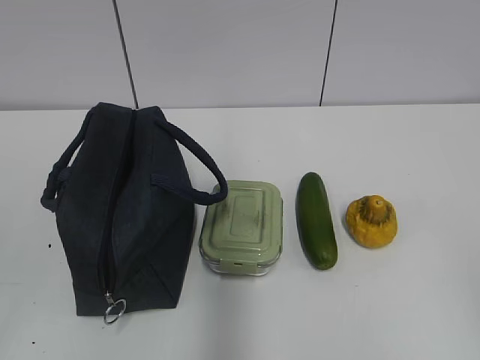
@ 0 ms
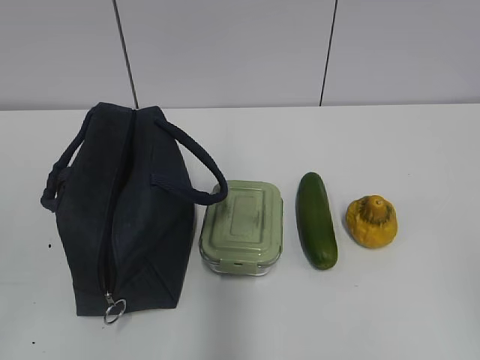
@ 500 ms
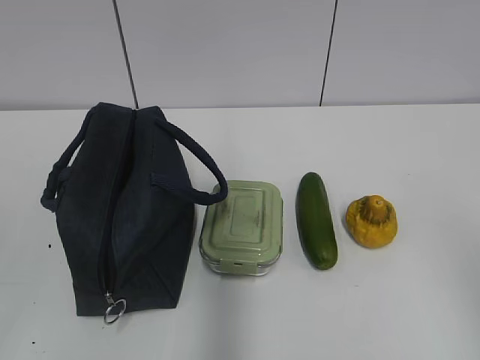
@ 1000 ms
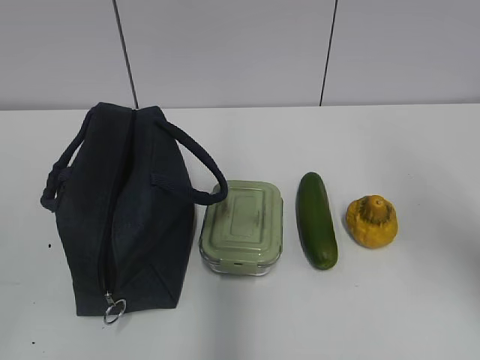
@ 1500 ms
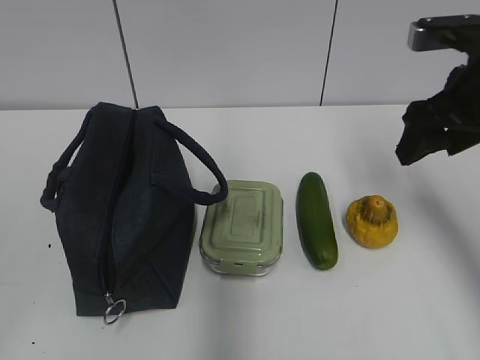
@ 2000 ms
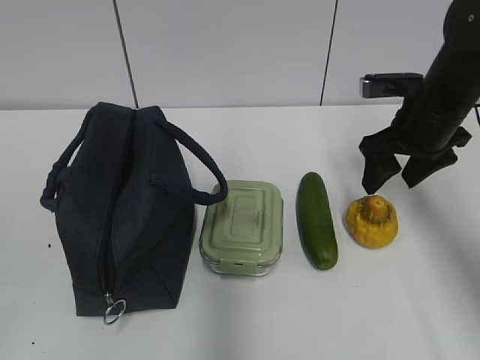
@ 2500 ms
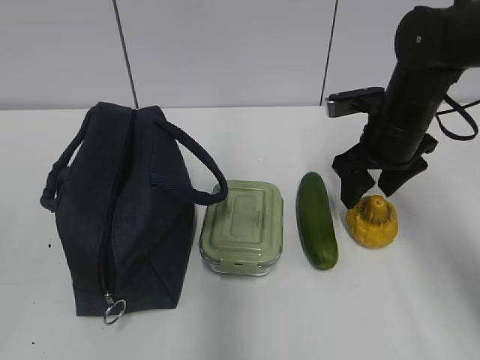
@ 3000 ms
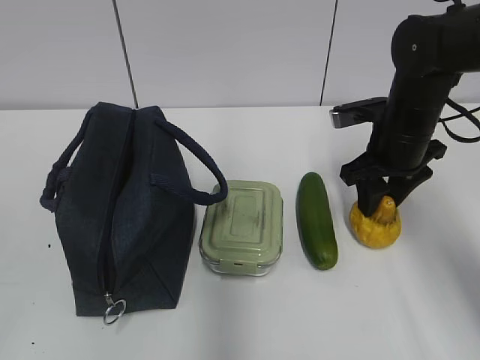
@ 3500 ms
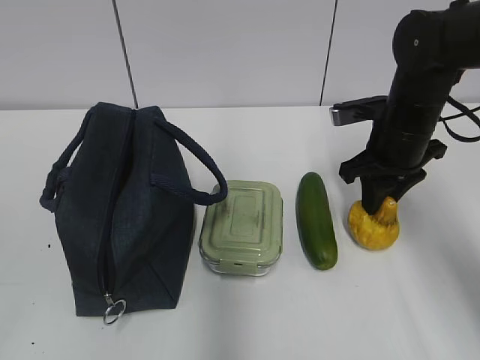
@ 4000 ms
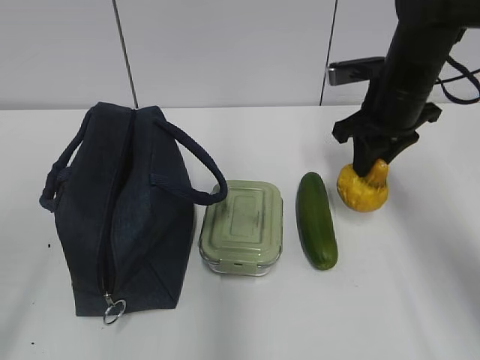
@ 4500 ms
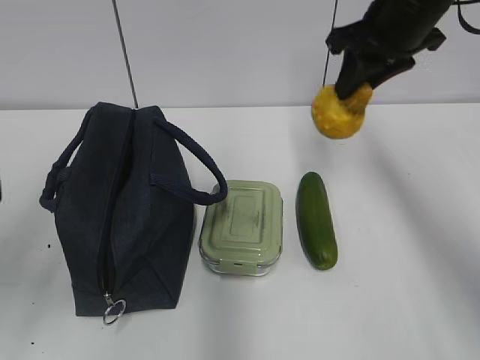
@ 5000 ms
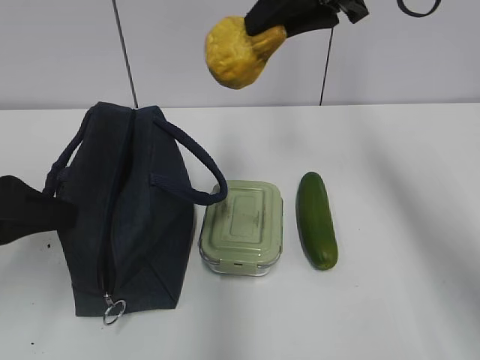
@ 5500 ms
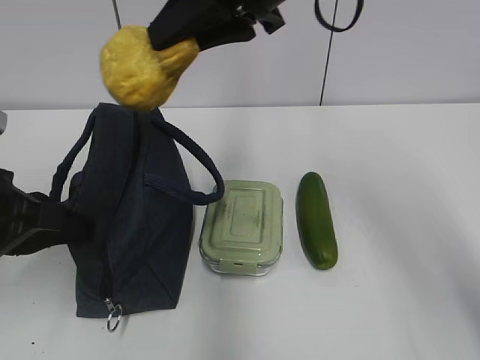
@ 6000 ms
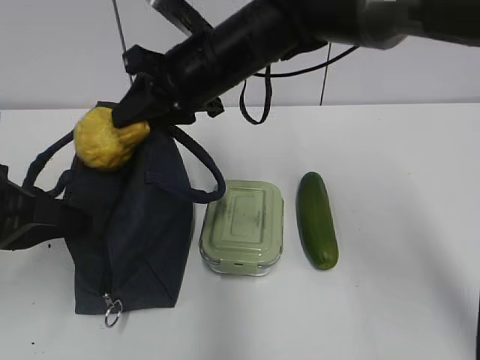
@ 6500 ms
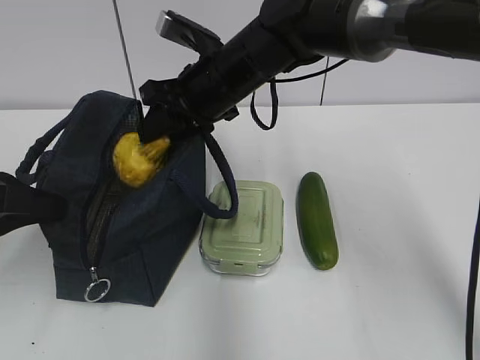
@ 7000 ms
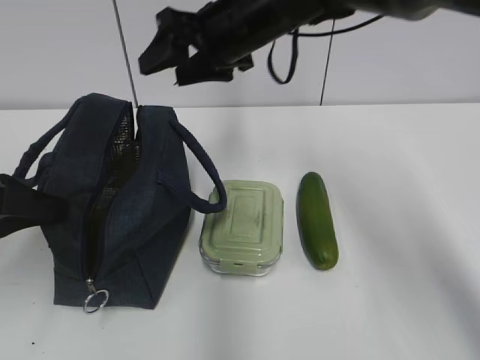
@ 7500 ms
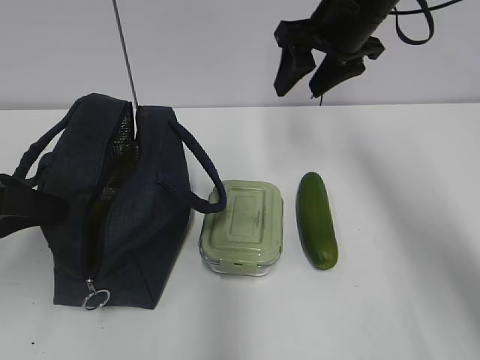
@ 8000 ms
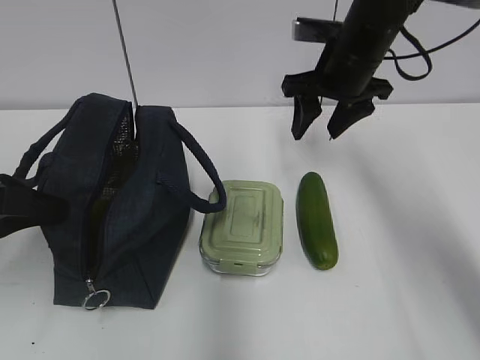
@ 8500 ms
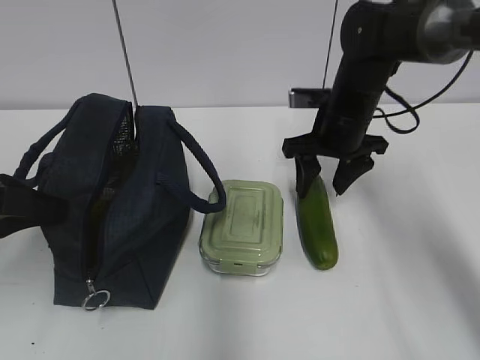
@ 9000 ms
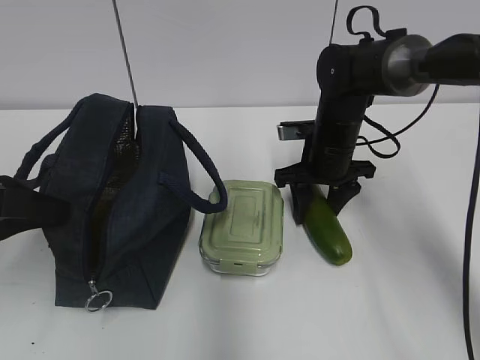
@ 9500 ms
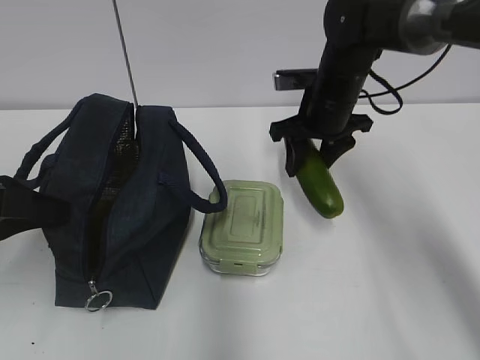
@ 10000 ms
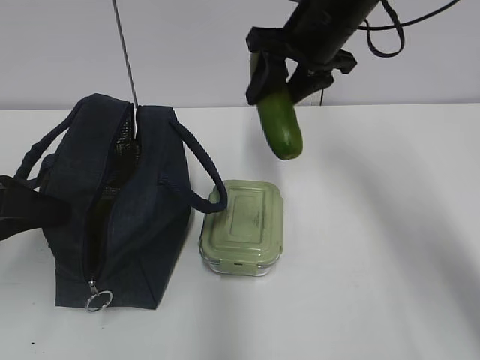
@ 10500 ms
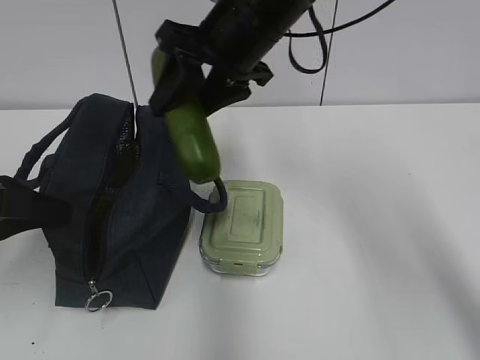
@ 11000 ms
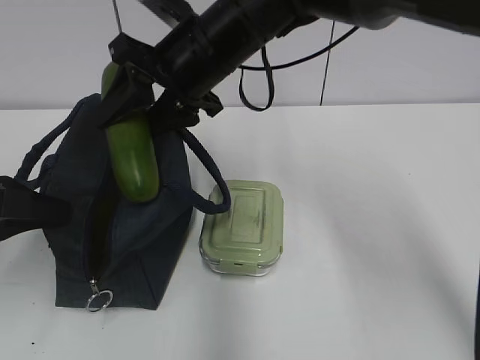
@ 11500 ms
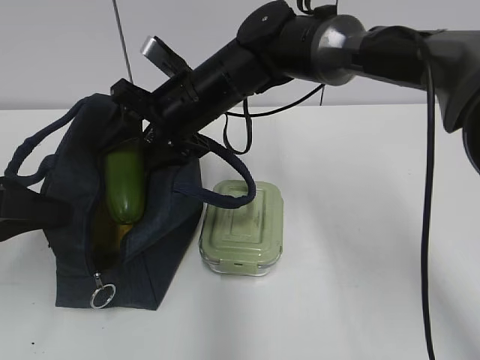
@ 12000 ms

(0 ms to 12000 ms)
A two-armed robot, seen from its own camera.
Step, 0 ms - 3500 ms: Grab the pear with your right hand.
Step, 4000 ms - 6500 ms: Grab the lunch bag with your left hand.
Step, 7500 ms - 9000 ms: Grab the cucumber with your right hand.
2000 ms - 4000 ms: The right gripper heads downward and forward, covering roughly 10 cm, and closes.
4000 ms - 6000 ms: The right gripper goes roughly 25 cm upward and to the left. The left gripper is displaced forward by some 20 cm, and closes.
6000 ms - 8000 ms: The right gripper heads to the right, forward and downward, covering roughly 15 cm, and opens.
8000 ms - 10000 ms: The right gripper goes some 10 cm downward.
10000 ms - 12000 ms: The right gripper moves to the left, about 15 cm.

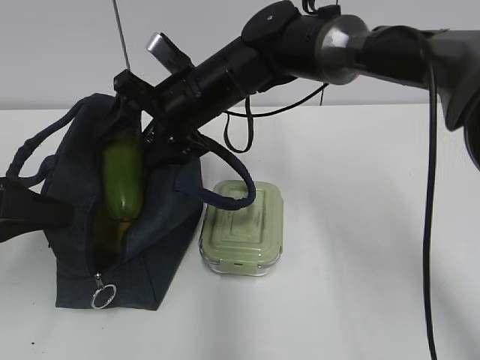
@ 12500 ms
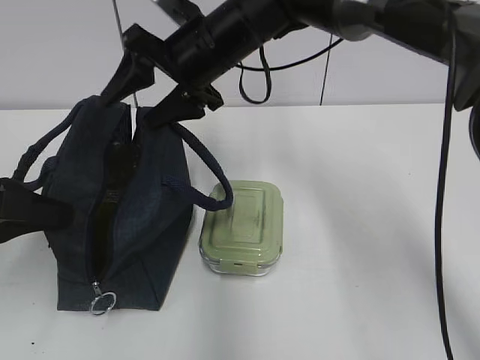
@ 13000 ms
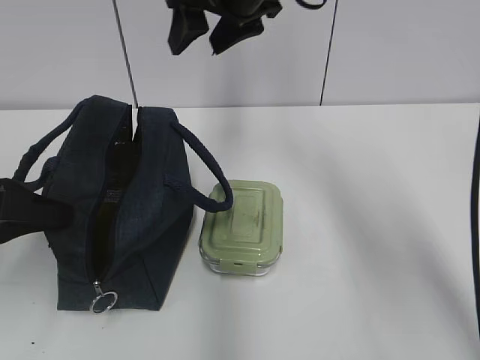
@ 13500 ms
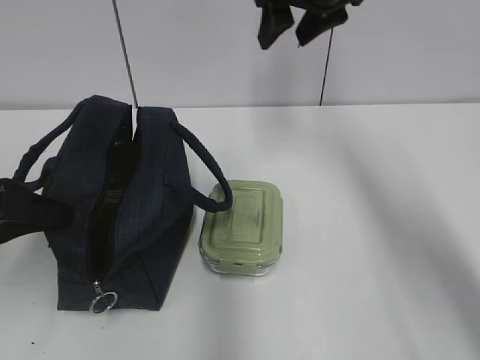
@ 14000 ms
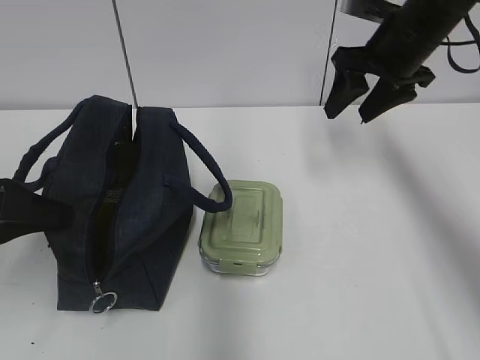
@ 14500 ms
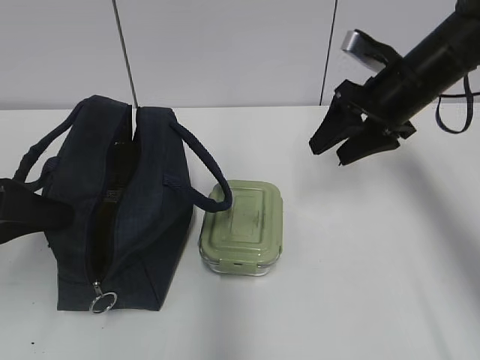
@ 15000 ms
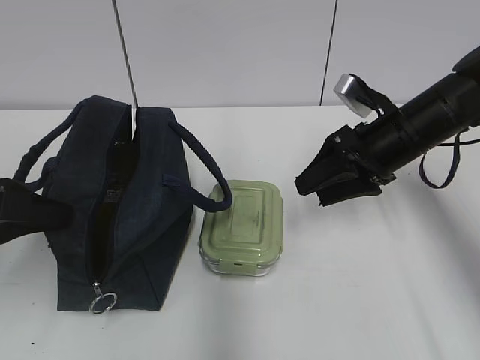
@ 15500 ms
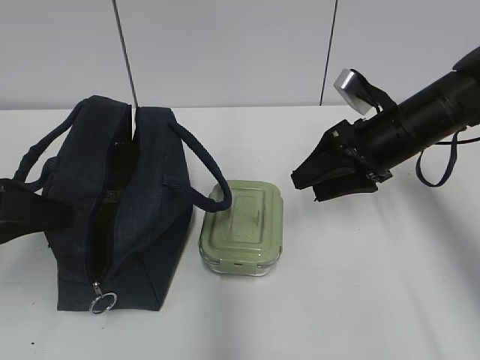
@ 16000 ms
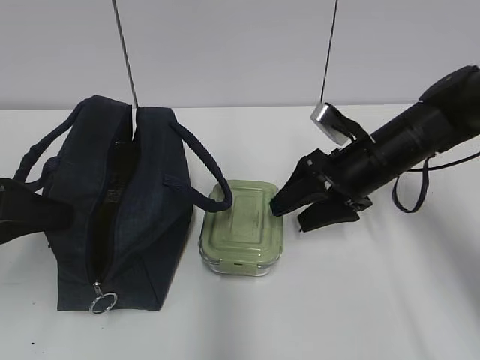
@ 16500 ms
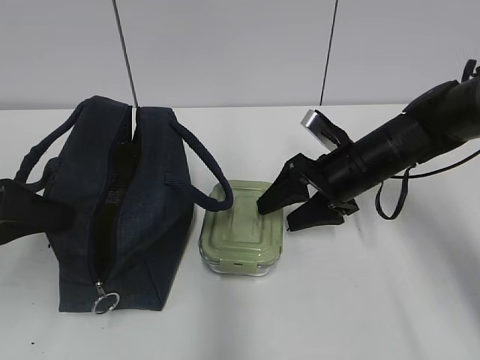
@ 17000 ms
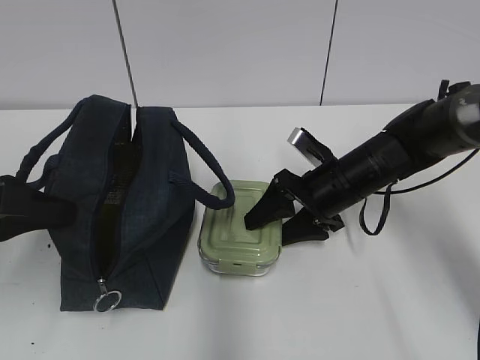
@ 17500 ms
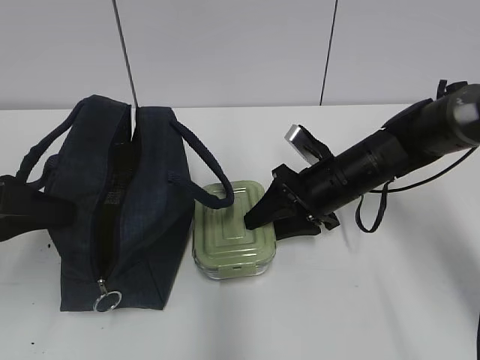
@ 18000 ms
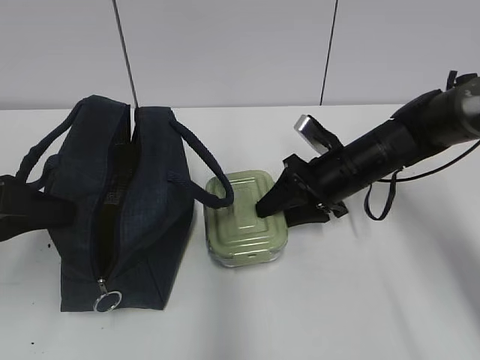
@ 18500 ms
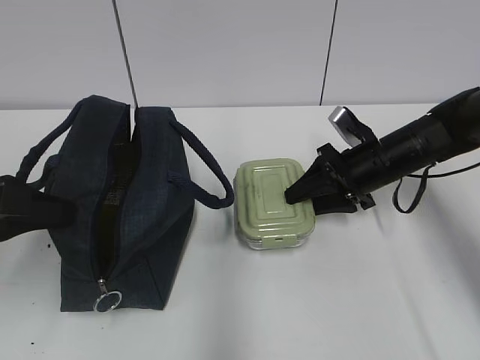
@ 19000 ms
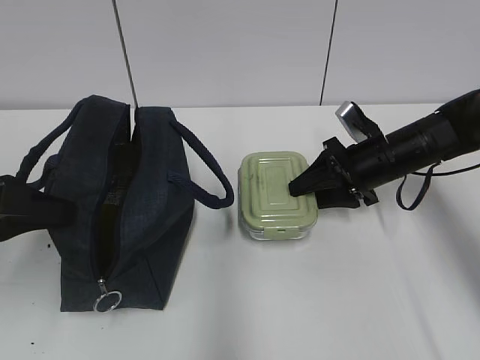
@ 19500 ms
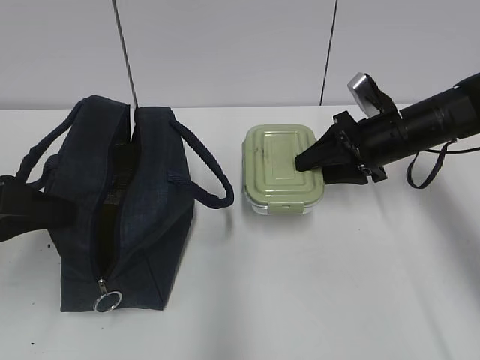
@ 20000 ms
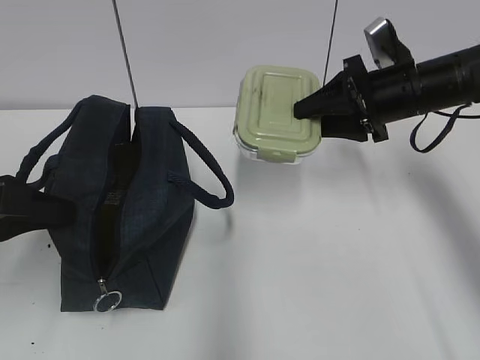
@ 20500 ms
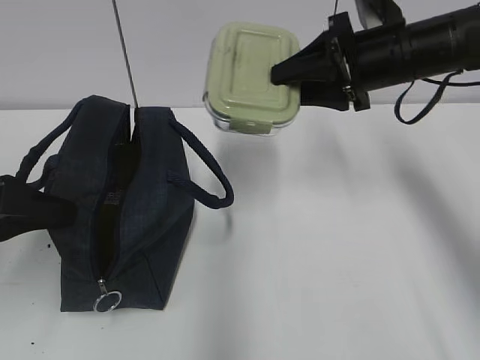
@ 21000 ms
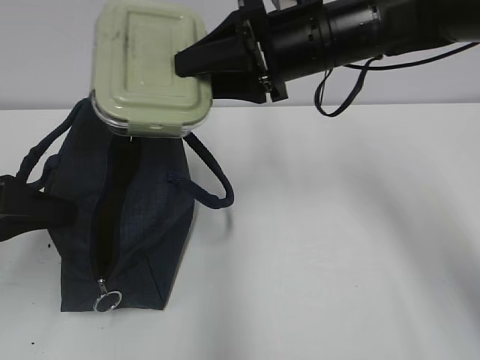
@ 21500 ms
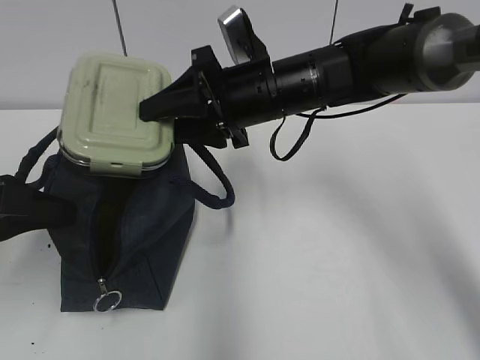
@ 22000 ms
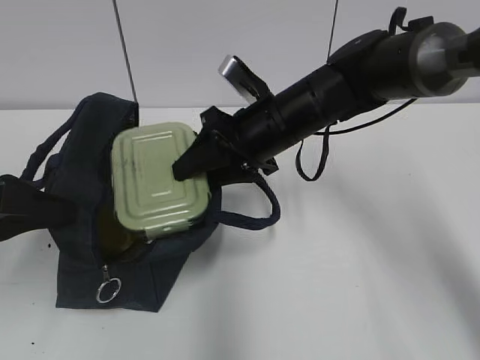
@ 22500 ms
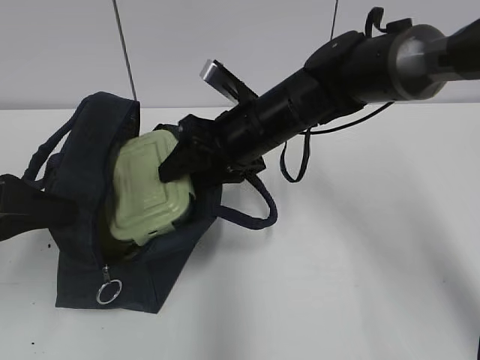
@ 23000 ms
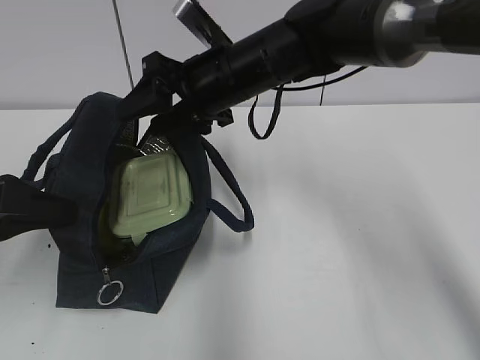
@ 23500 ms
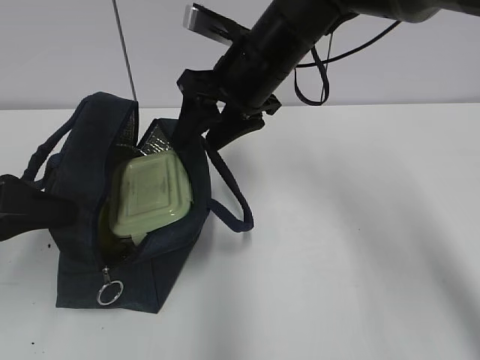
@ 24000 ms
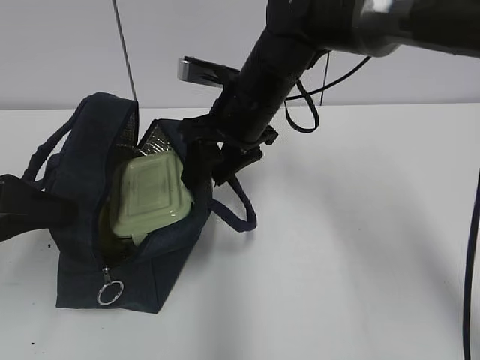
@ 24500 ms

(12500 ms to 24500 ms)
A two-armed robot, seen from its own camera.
Step, 13500 ms - 17500 ms: Grab the lunch box with your right hand.
12500 ms - 14500 ms: The right gripper travels to the right by roughly 25 cm.
14500 ms - 16500 ms: The right gripper shifts roughly 15 cm downward and backward.
16500 ms - 18500 ms: The grippers move only a little.
18500 ms - 20500 ms: The right gripper heads upward and to the right, covering about 10 cm.
20500 ms - 22500 ms: The right gripper heads to the left, covering some 15 cm.

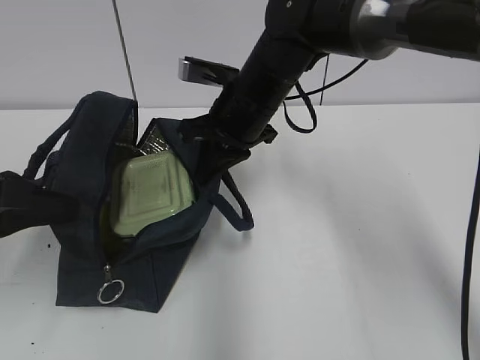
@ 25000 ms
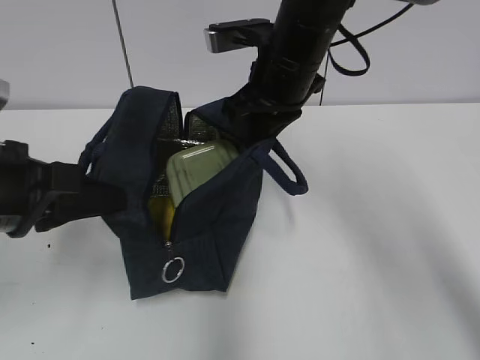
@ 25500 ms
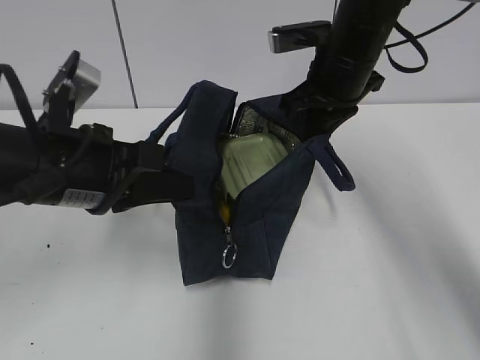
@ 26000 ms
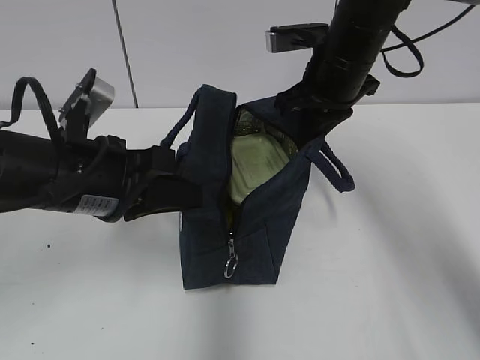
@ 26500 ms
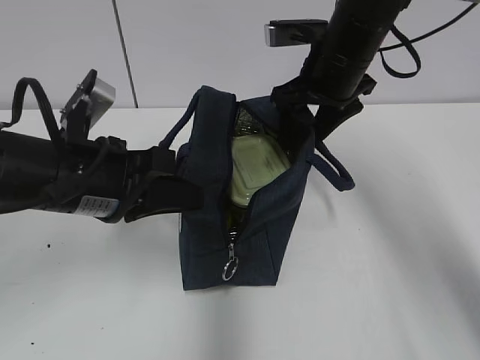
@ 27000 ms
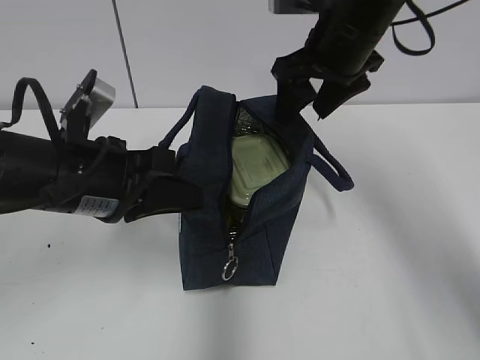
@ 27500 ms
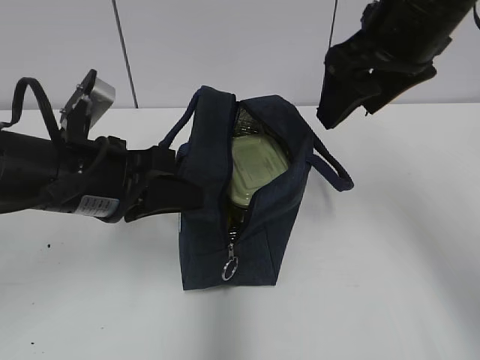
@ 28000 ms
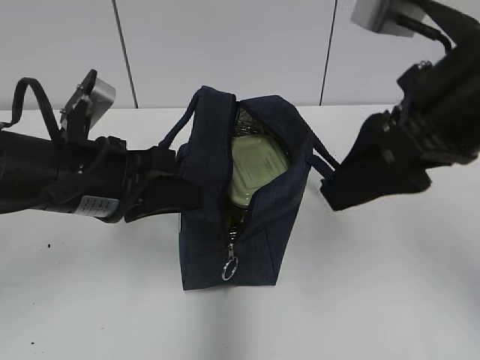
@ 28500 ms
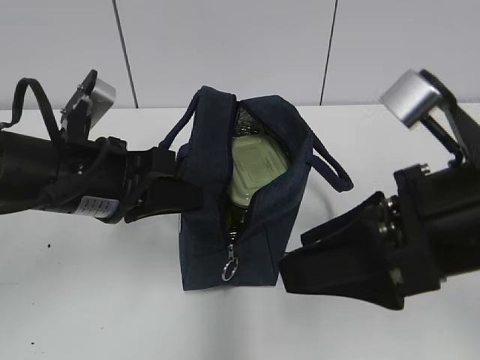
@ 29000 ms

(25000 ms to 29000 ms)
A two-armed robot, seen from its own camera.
Step, 25000 ms - 27000 ms: Move the lunch bag to the right.
25000 ms - 27000 ms: The grippers both shift to the right by approximately 10 cm. The right gripper opens its fingers.
27000 ms - 29000 ms: The right gripper goes roughly 25 cm backward.
